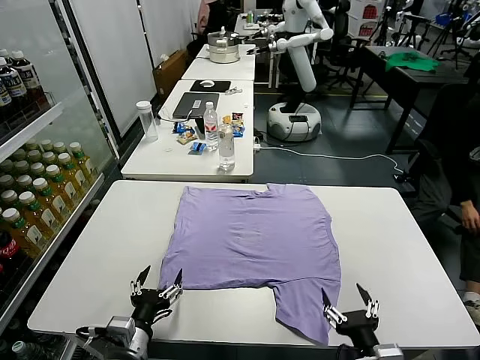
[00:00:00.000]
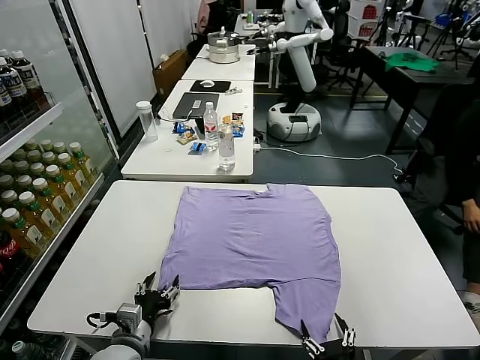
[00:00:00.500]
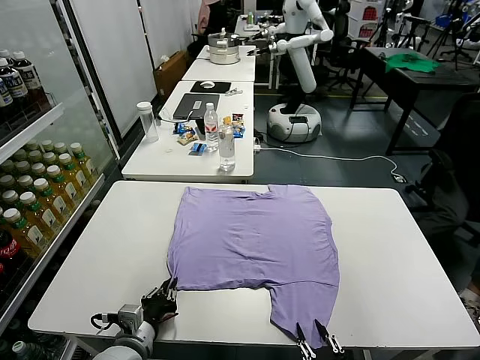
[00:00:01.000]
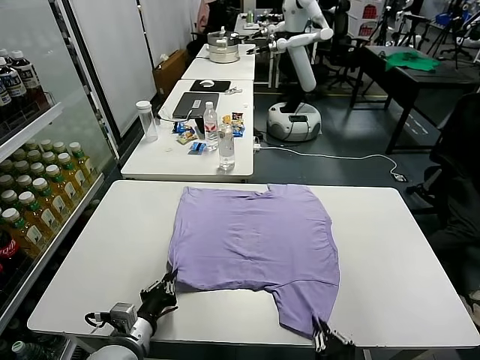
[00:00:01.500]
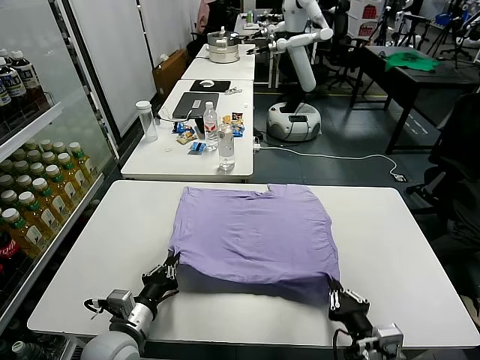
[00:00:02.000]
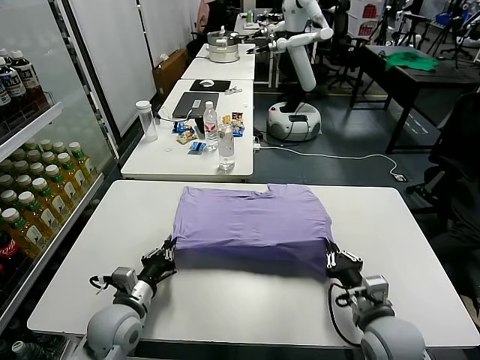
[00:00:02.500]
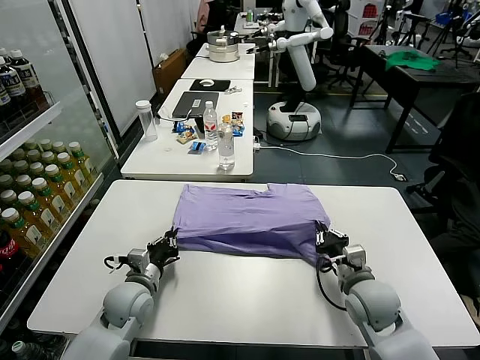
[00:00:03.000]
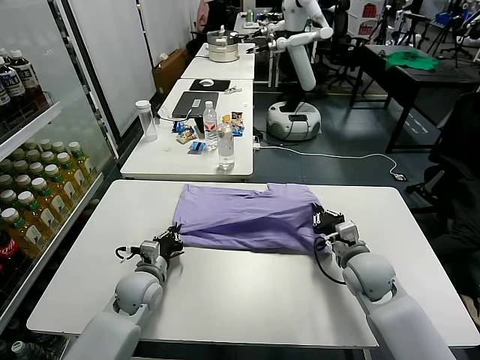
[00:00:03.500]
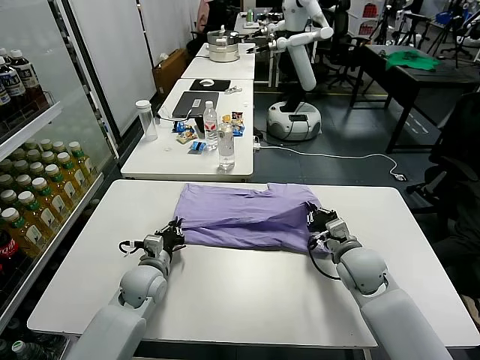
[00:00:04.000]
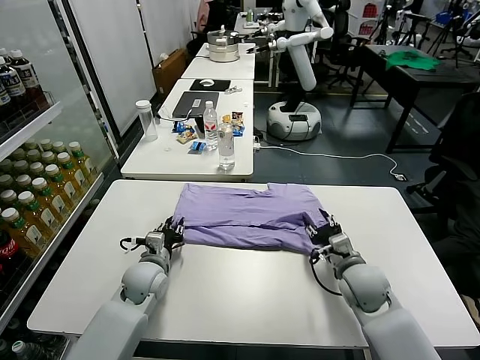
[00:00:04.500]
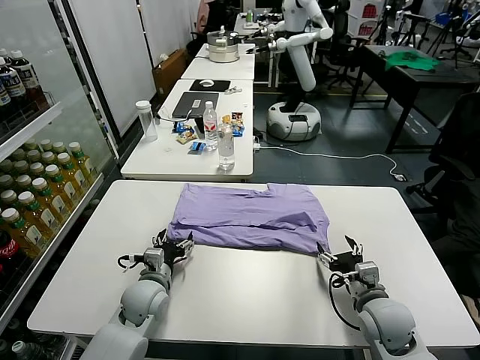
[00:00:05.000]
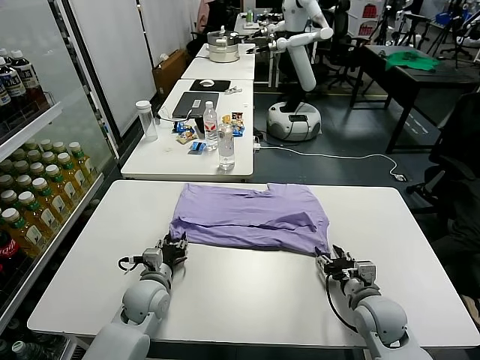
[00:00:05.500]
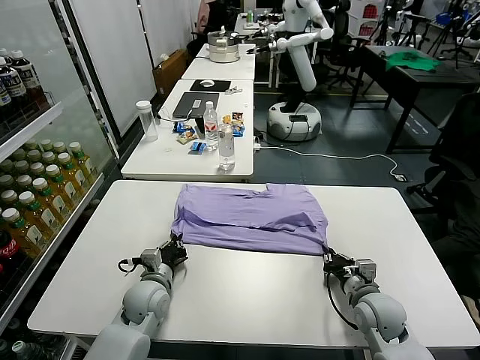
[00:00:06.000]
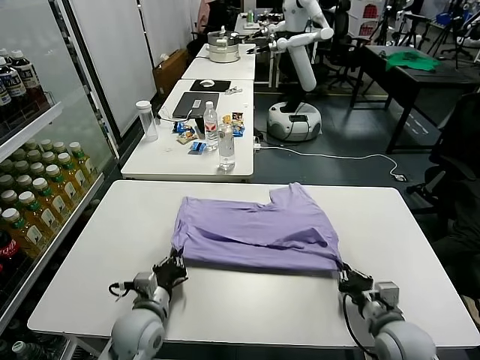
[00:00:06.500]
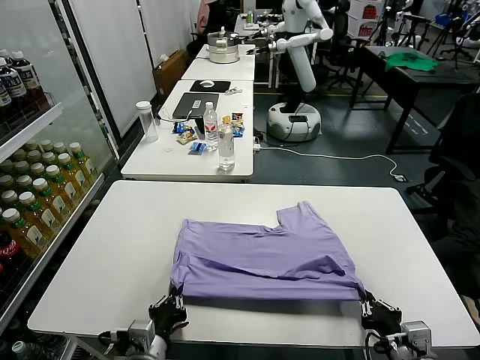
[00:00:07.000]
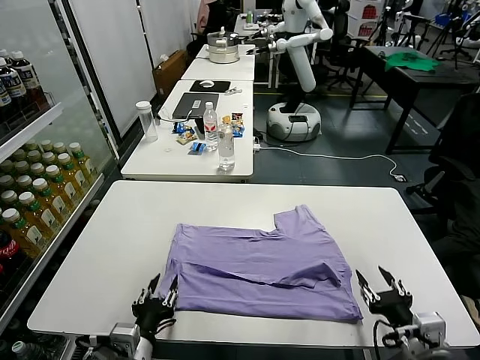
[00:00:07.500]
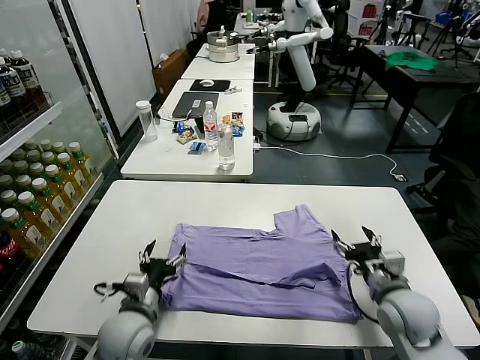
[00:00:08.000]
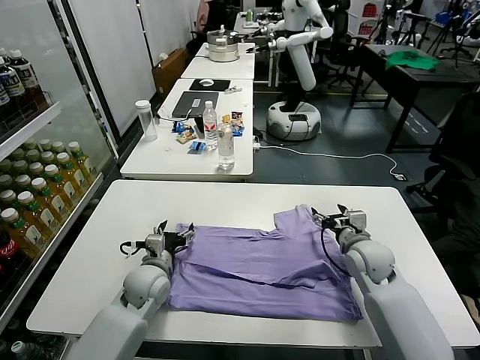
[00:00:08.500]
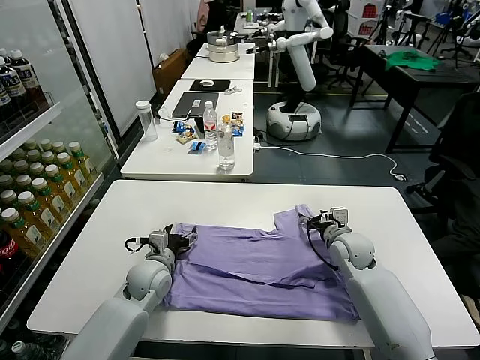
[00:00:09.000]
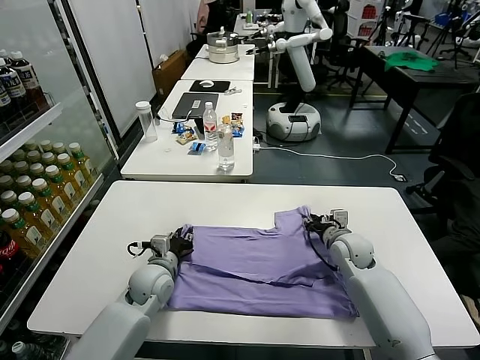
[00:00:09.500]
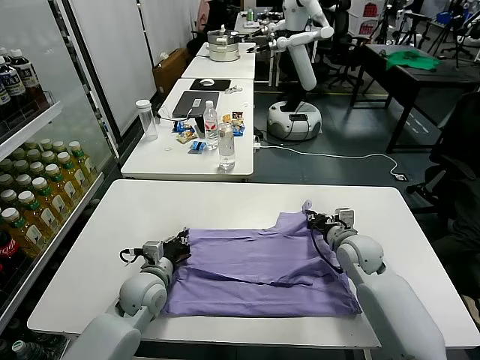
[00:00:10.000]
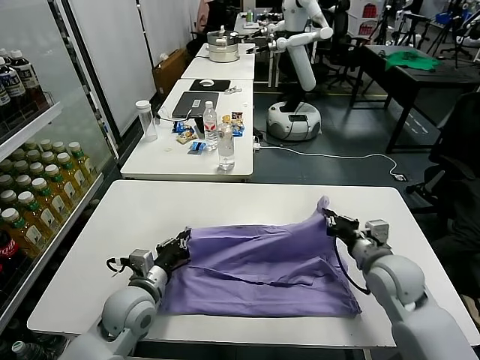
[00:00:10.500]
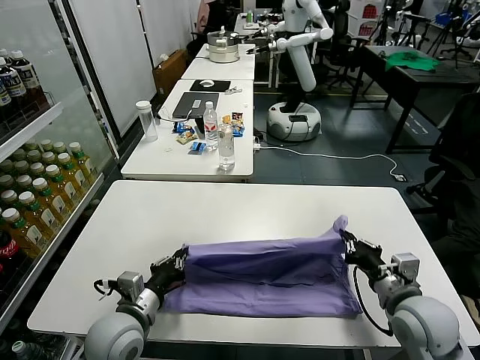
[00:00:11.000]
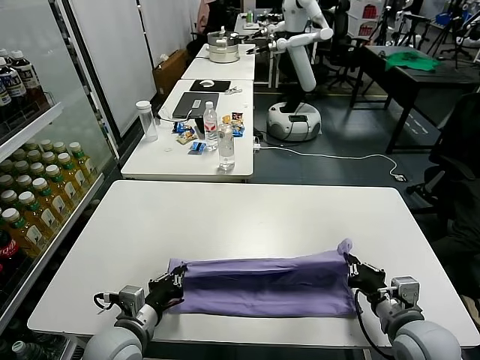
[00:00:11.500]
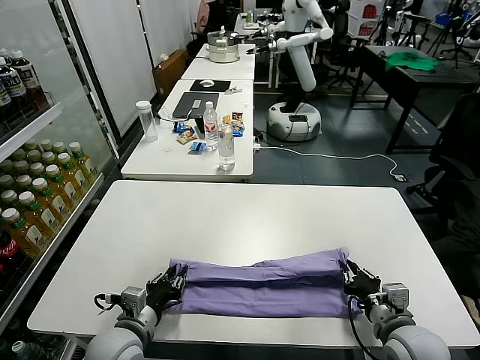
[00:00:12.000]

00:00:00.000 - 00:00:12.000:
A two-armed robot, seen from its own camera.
Task of the whole recording: fold and organize the clothes.
Step, 00:00:00.000 - 00:00:01.500: use both grippers simultaneously to clamp the lower edge of the clothing fabric.
Step, 00:00:02.000 - 00:00:04.500: use both grippers to drag the lower edge of the fabric forward and fold it over the upper edge.
Step, 00:00:05.000 - 00:00:07.000: Drag the clothes downward with both gripper.
Step, 00:00:08.000 - 00:00:09.500: use both grippers simultaneously to clamp the upper edge of the clothing fabric.
00:00:02.000 - 00:00:04.000: Both grippers move forward, some 20 cm.
00:00:04.000 - 00:00:06.000: The left gripper opens, then closes again. Meanwhile the right gripper is displaced backward and downward by roughly 10 cm, and opens, then closes once more.
00:00:06.000 - 00:00:08.000: The left gripper is displaced backward and upward by some 10 cm, and opens; the right gripper shifts roughly 5 cm upward, moves some 15 cm backward and comes back, and opens its fingers.
00:00:08.000 - 00:00:10.000: The grippers both shift forward by roughly 10 cm. The right gripper closes its fingers, while the left gripper closes its fingers.
00:00:10.000 - 00:00:12.000: The left gripper goes some 15 cm backward, and opens up. Meanwhile the right gripper heads backward, covering some 20 cm.

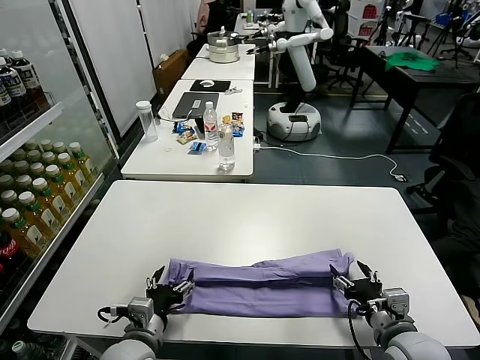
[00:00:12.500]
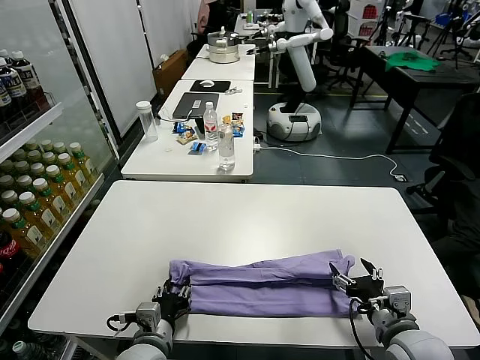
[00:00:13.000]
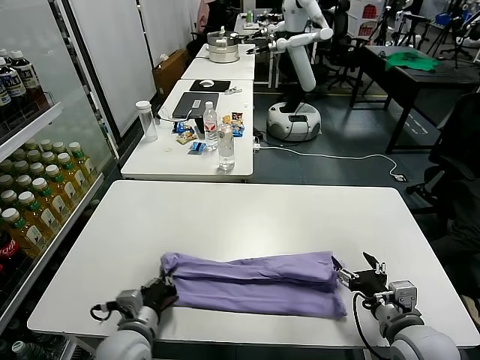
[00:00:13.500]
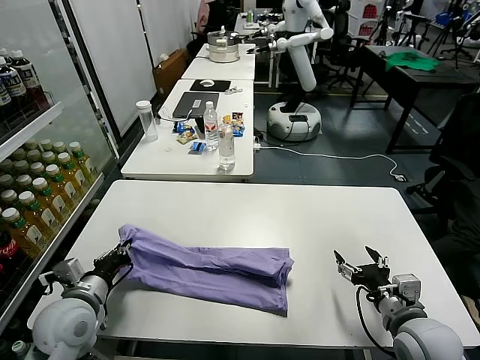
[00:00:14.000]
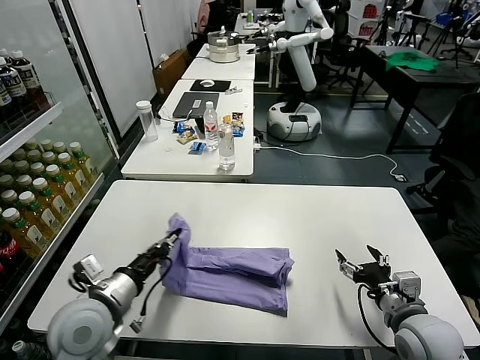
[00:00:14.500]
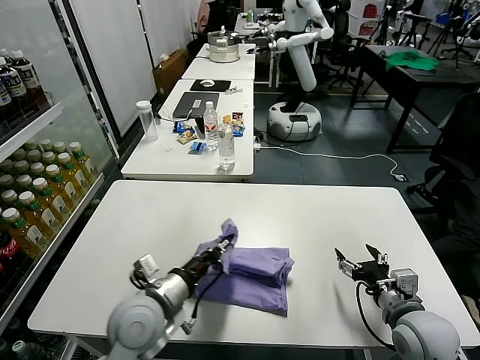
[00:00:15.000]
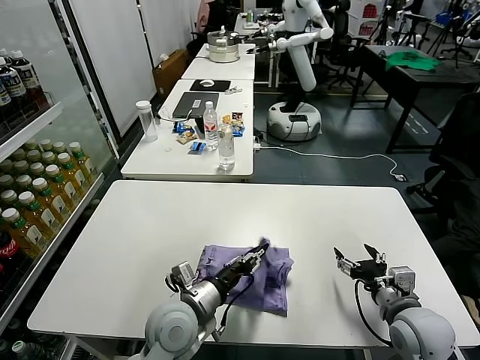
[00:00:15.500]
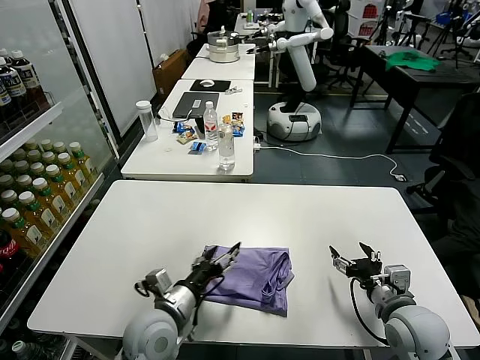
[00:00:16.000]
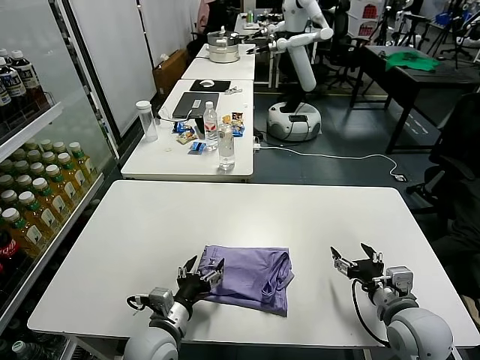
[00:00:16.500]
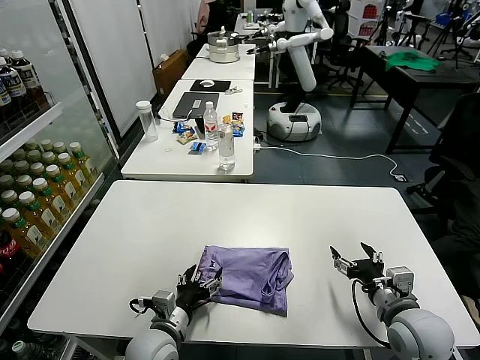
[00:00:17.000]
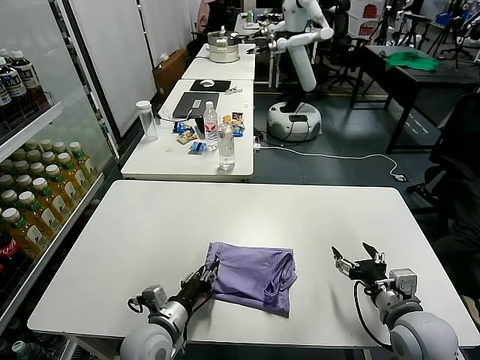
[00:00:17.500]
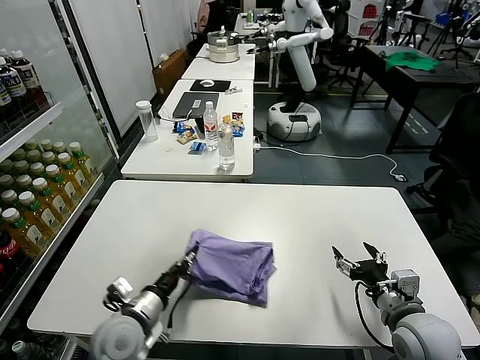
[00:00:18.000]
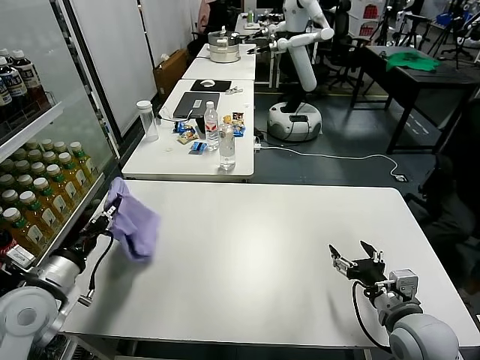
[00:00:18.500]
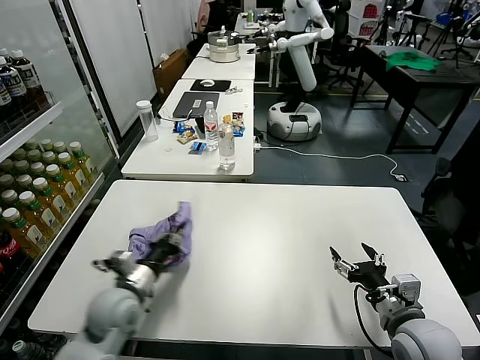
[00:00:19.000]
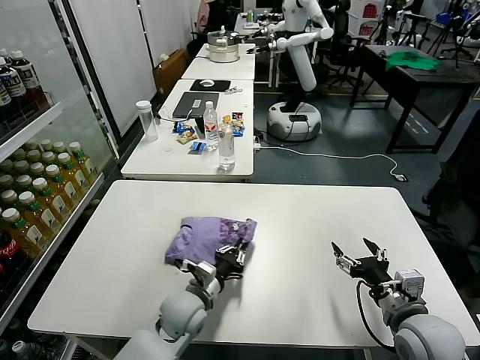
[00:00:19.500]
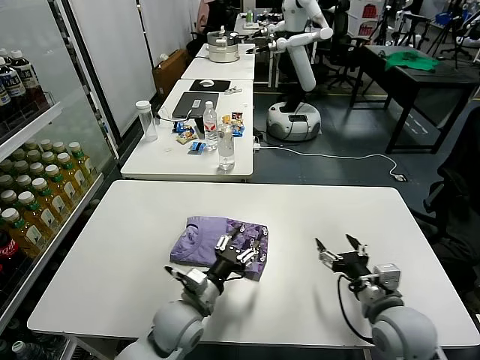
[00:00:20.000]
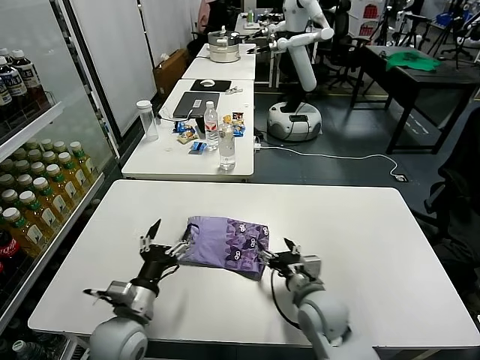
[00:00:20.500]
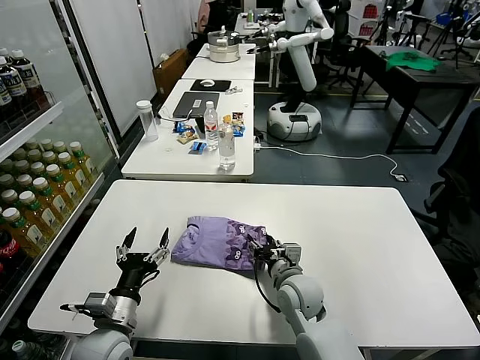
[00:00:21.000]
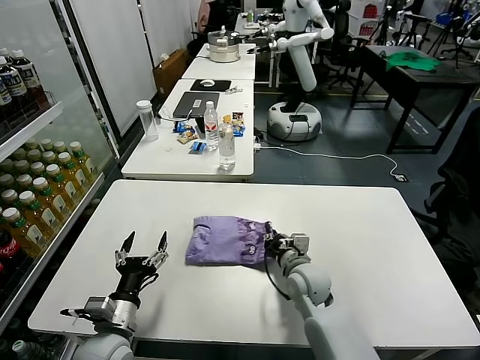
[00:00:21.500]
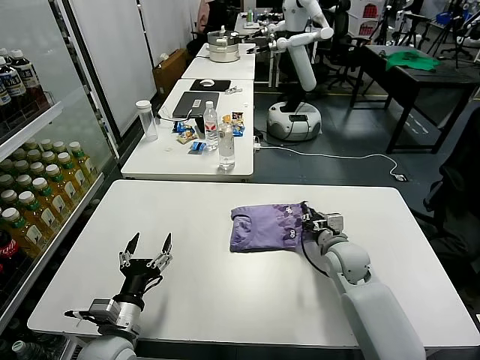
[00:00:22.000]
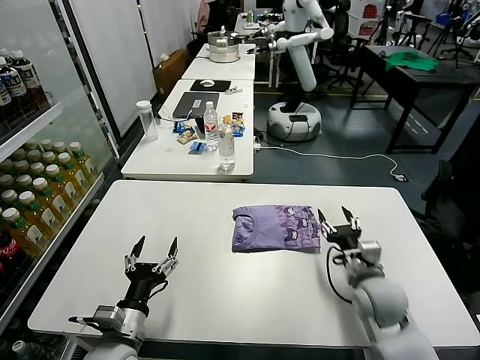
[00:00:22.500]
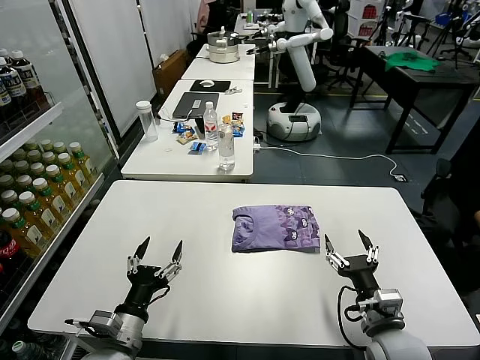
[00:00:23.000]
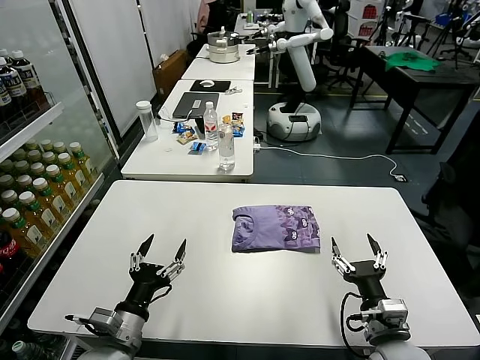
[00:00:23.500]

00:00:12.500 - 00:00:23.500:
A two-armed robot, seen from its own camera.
Task of the whole recording: fold and organize the clothes.
Step, 00:00:12.500 - 00:00:13.500: use the left gripper to clamp the left edge of the fabric.
Step, 00:00:14.000 - 00:00:15.500: use the left gripper to drag the left edge of the fabric to the left and folds it over the right edge.
Step, 00:00:16.500 - 00:00:19.500: Flip the folded clothes over with left gripper.
Step, 00:00:20.000 - 00:00:22.000: Drag the clothes to the center of the table.
00:00:12.500 - 00:00:14.500: The left gripper is displaced upward and to the left by about 10 cm, and closes.
00:00:14.500 - 00:00:16.000: The left gripper is displaced to the right and downward by approximately 10 cm, and opens.
00:00:16.000 - 00:00:18.000: The left gripper moves to the left, approximately 5 cm, and closes its fingers.
00:00:18.000 - 00:00:20.000: The left gripper moves to the right, roughly 10 cm, and opens its fingers.
00:00:20.000 - 00:00:21.500: The right gripper shifts some 20 cm to the left, forward and downward, and closes. The left gripper goes roughly 15 cm to the left and backward.
00:00:21.500 - 00:00:23.500: The right gripper goes about 20 cm backward and to the right, and opens up.
